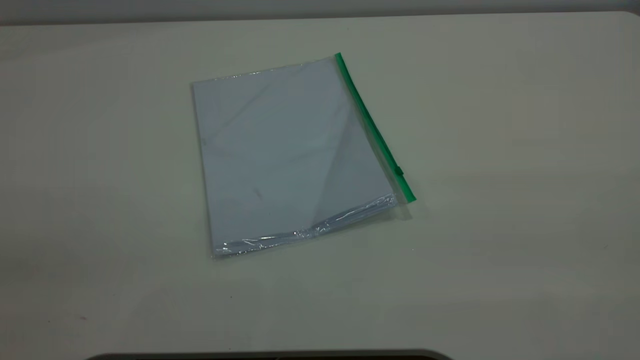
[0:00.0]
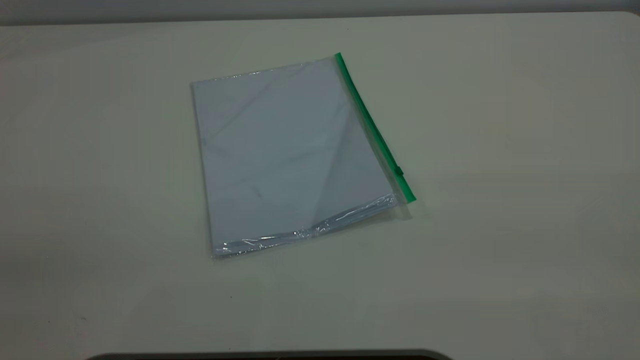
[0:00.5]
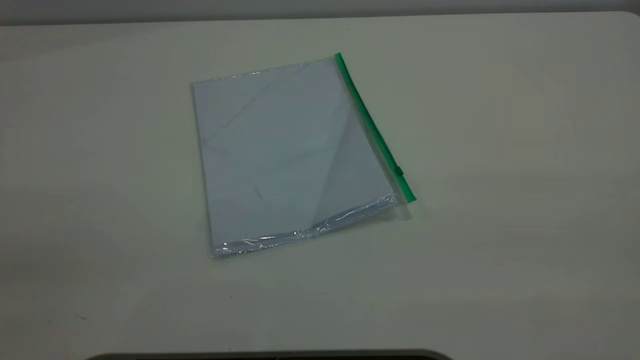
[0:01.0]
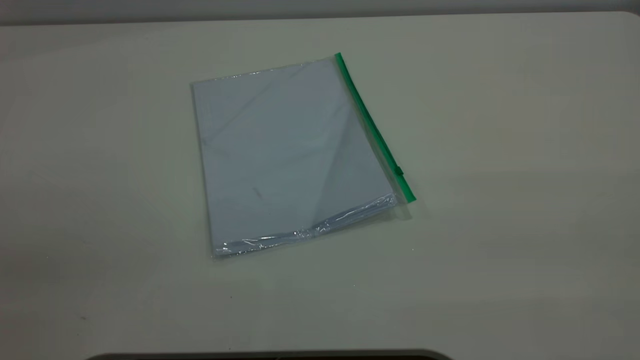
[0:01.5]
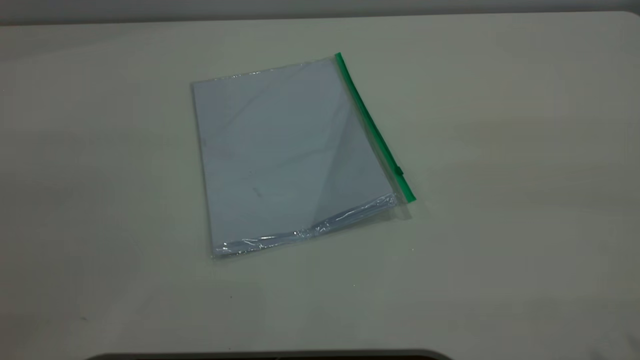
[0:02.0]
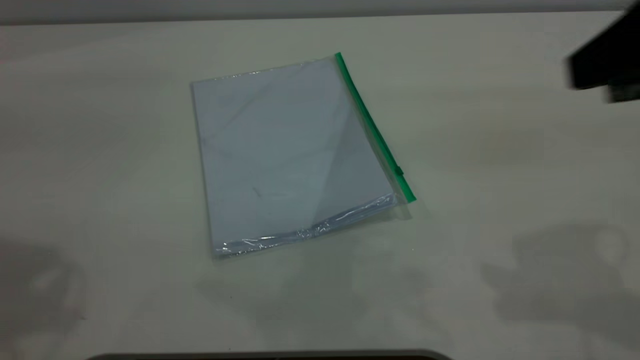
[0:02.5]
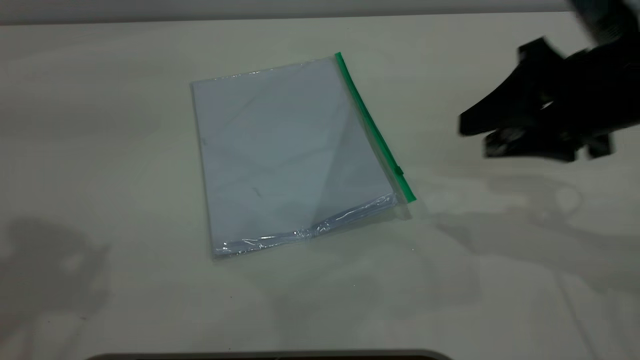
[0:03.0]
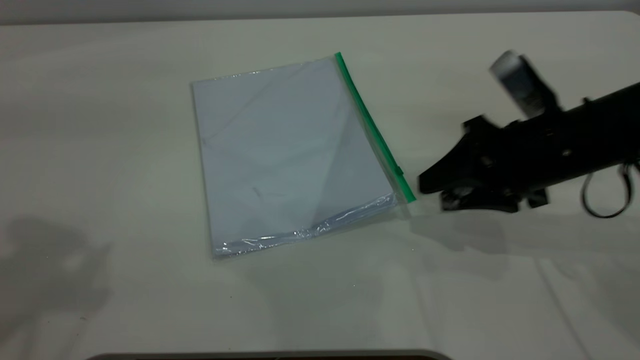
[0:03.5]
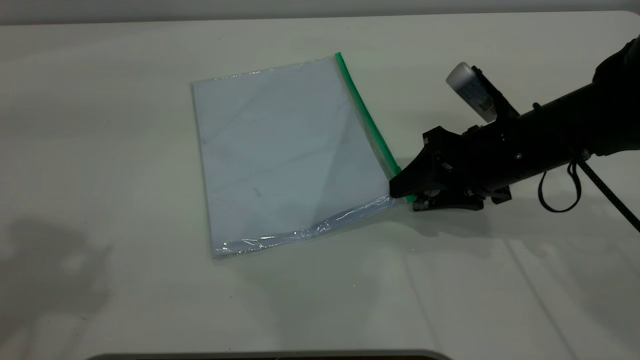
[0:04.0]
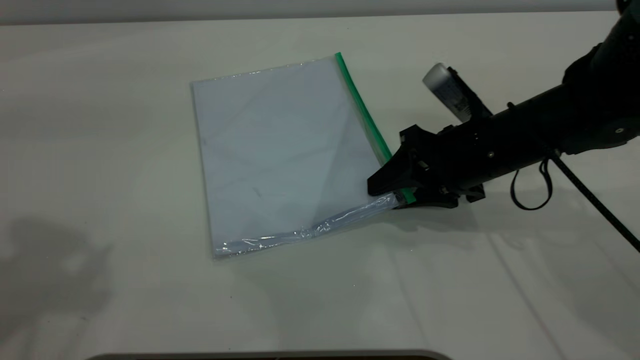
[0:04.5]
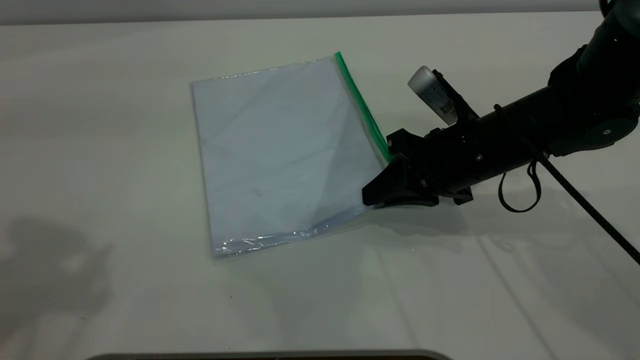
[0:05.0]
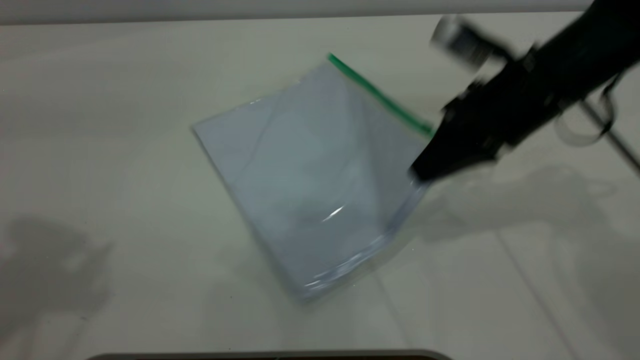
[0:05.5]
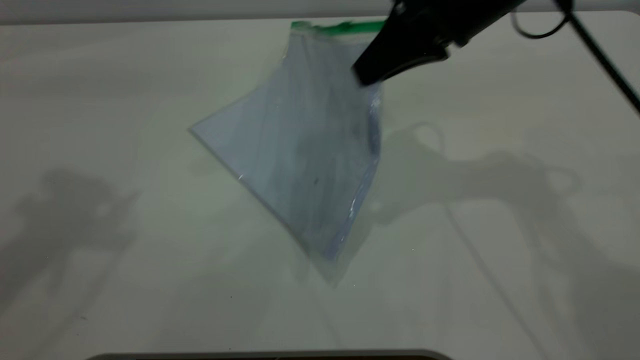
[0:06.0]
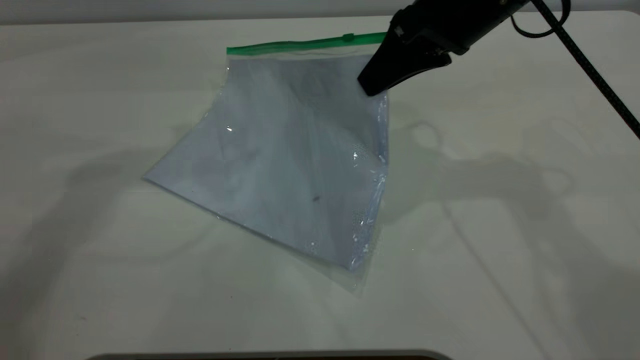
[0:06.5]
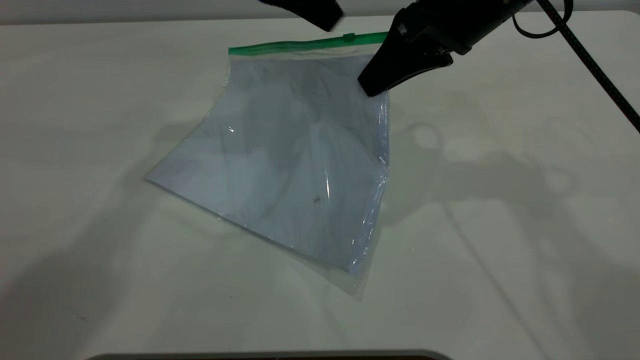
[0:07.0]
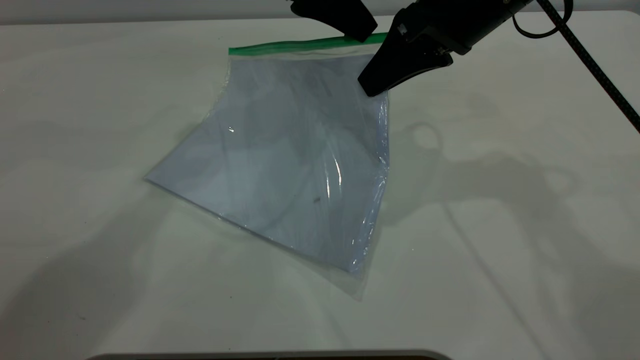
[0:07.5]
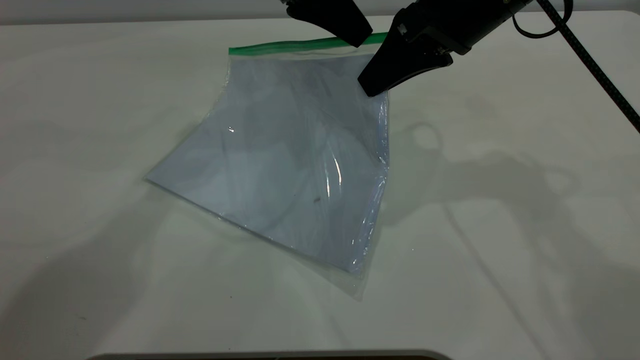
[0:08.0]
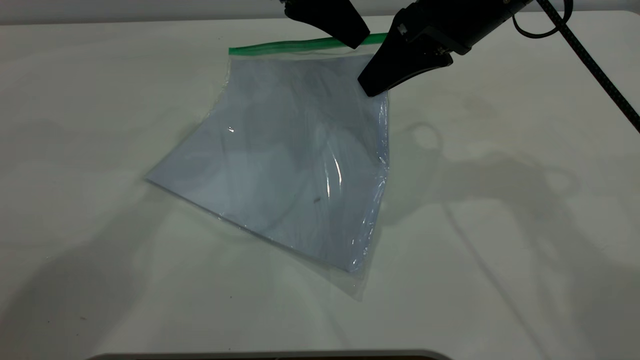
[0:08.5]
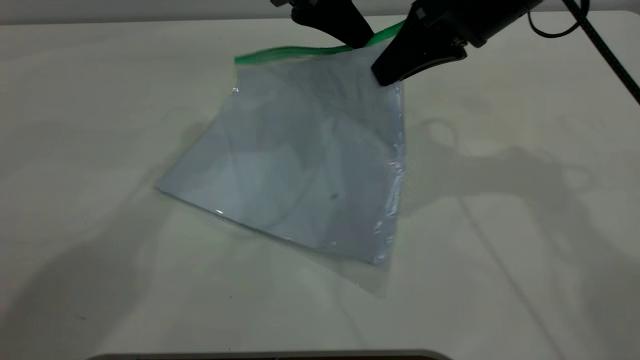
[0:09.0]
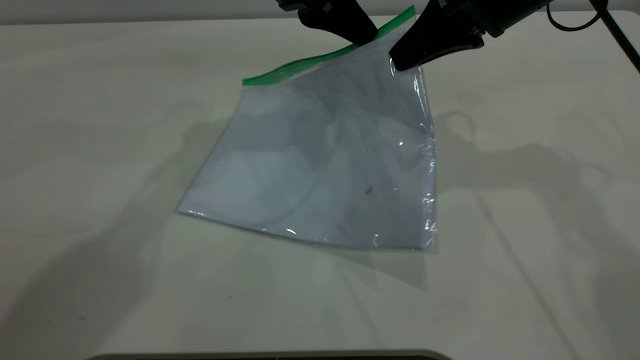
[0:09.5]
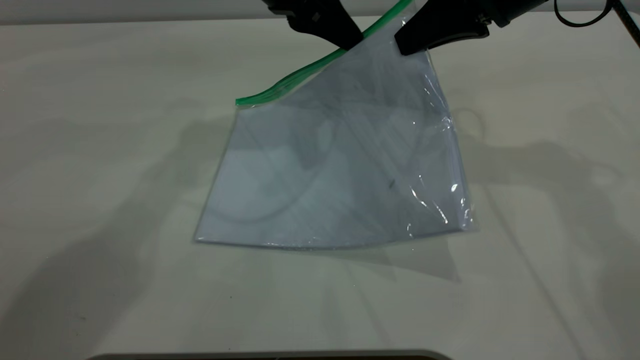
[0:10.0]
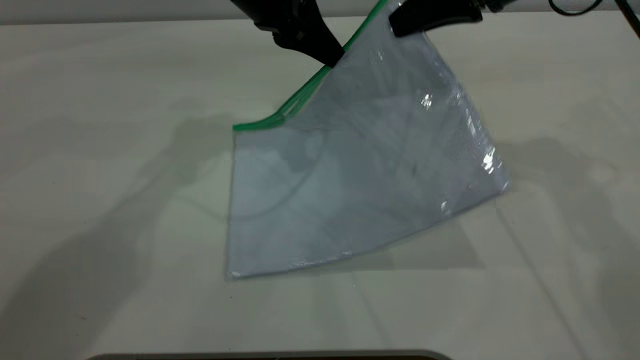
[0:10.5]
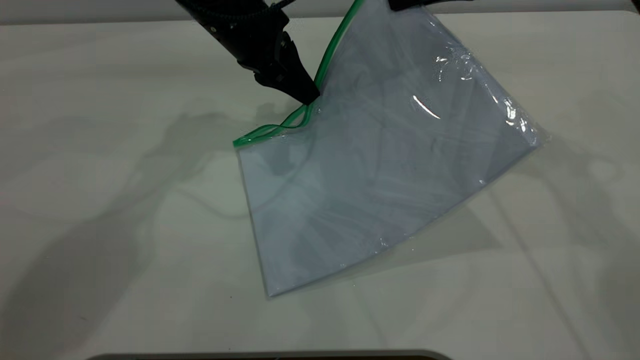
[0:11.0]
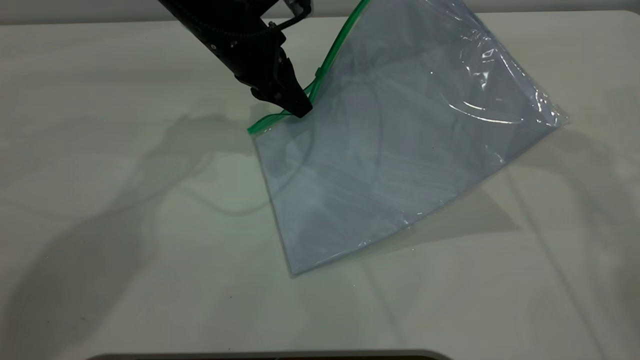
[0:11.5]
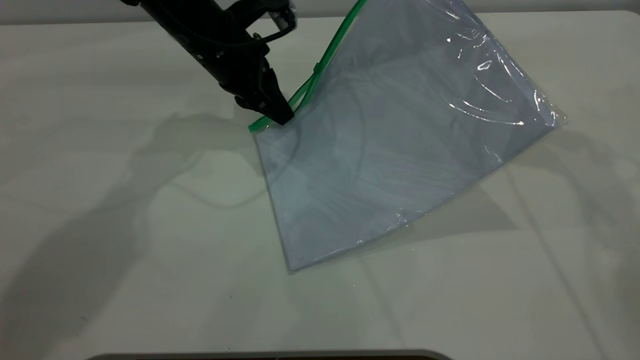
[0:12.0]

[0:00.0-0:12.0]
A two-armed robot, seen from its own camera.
Step, 0:00.0 to 0:05.0: Pick up the transparent plastic bag with the right gripper.
0:02.0 to 0:04.0: The left gripper travels forward by about 15 cm, while the right gripper is displaced downward and forward by approximately 40 cm.
0:04.0 to 0:06.0: The left gripper shifts roughly 10 cm forward. Meanwhile the right gripper moves upward, roughly 15 cm, and closes its fingers.
0:06.0 to 0:08.0: The left gripper shifts some 30 cm to the right, downward and forward, and closes its fingers.
0:08.0 to 0:10.0: The right gripper shifts by roughly 5 cm. Meanwhile the left gripper closes its fingers.
0:10.0 to 0:12.0: The left gripper shifts roughly 10 cm downward and to the left.

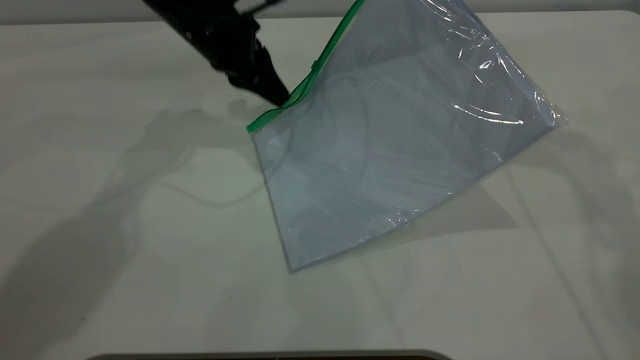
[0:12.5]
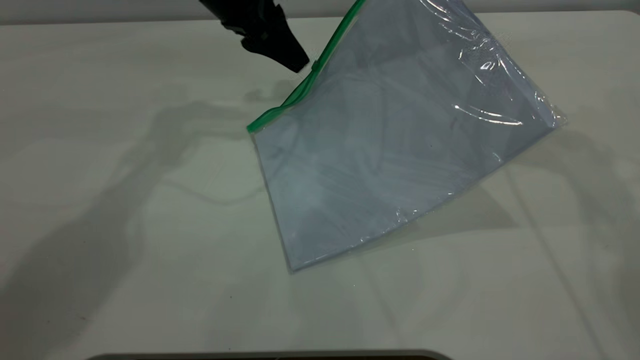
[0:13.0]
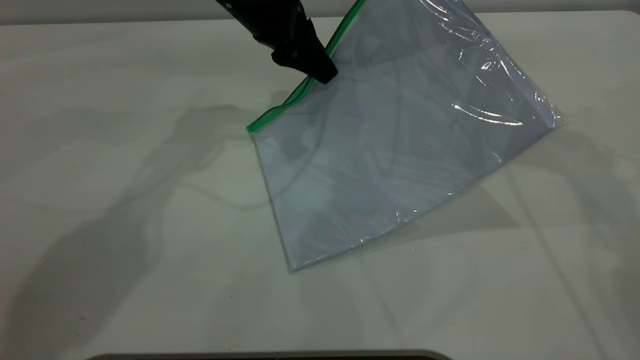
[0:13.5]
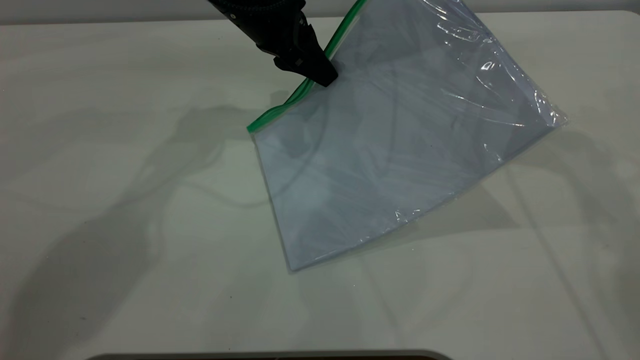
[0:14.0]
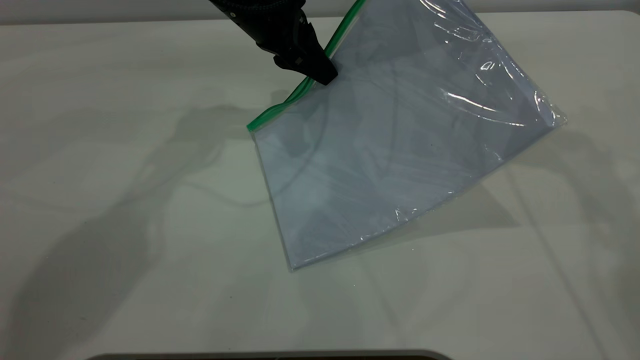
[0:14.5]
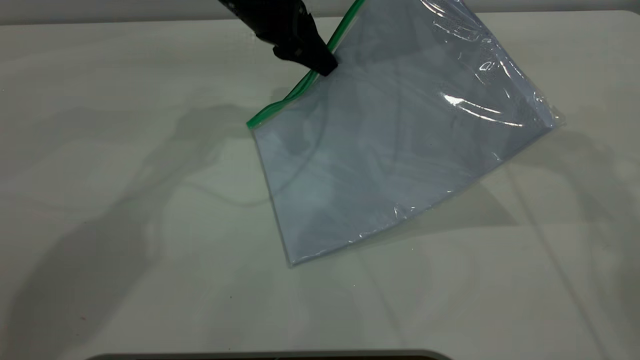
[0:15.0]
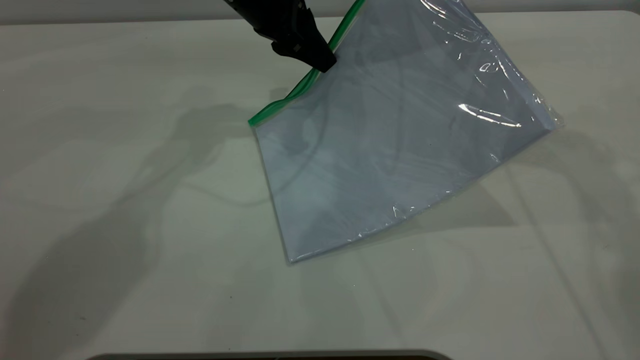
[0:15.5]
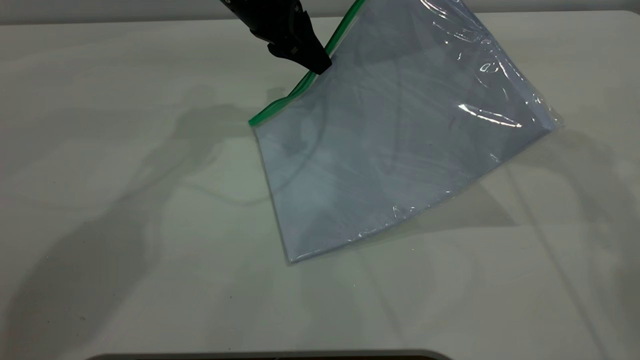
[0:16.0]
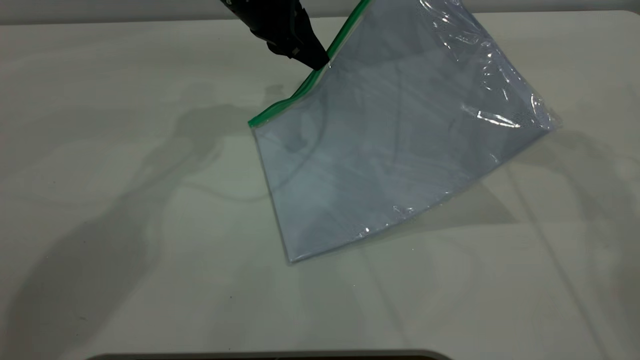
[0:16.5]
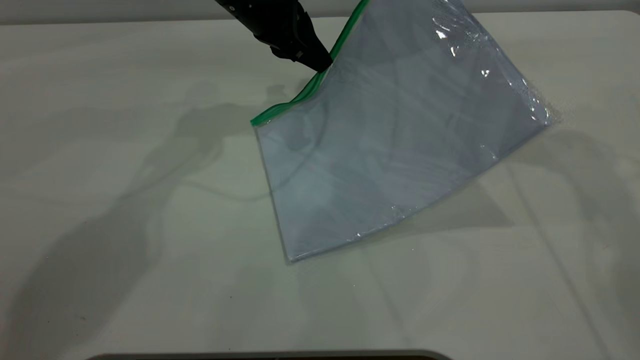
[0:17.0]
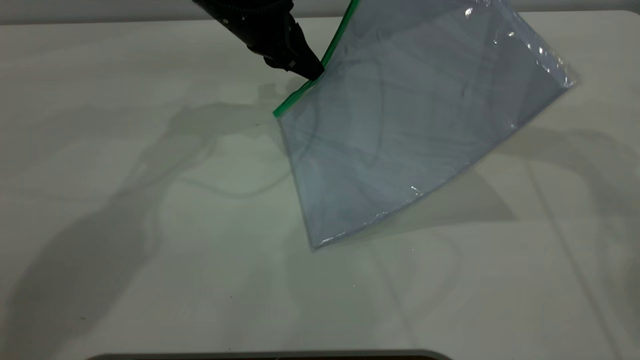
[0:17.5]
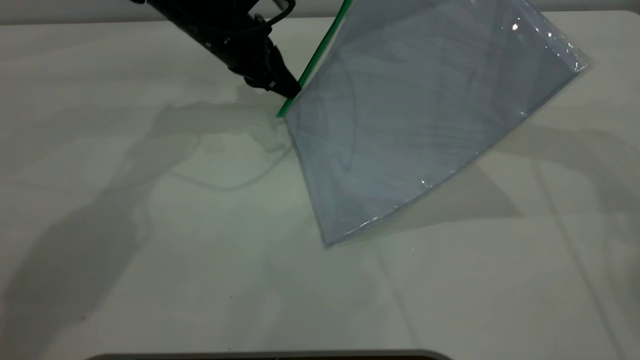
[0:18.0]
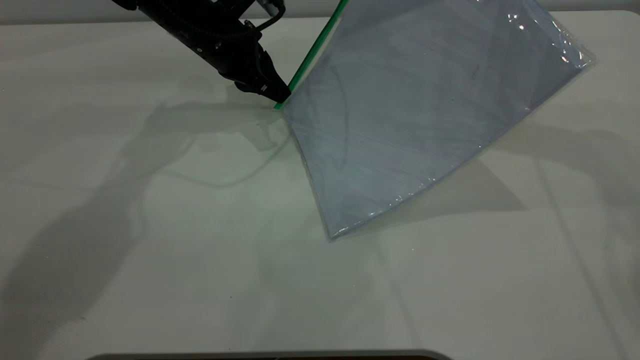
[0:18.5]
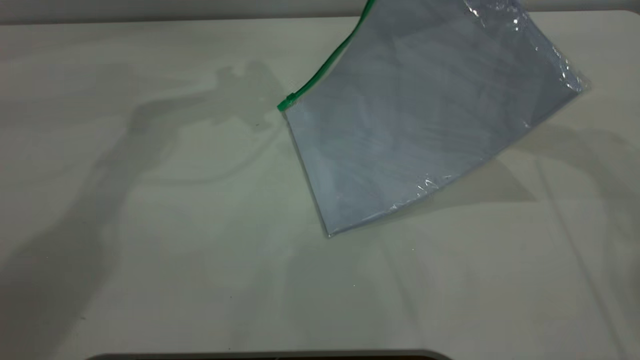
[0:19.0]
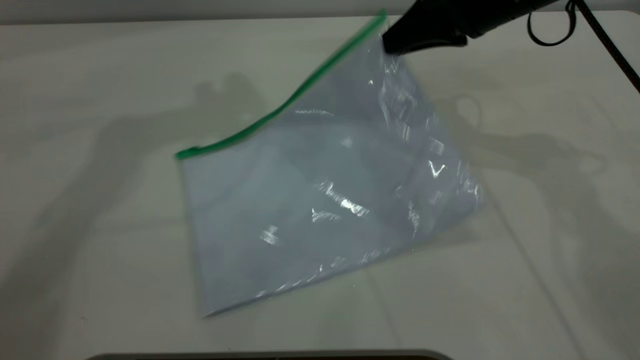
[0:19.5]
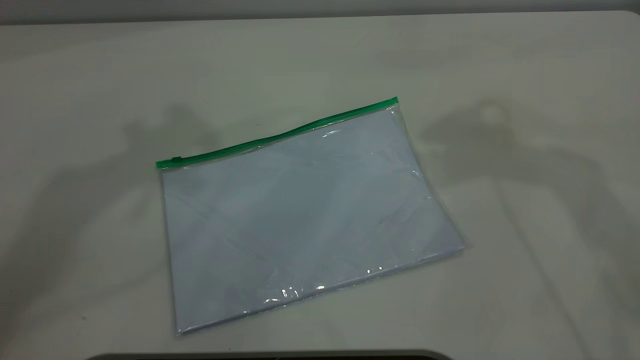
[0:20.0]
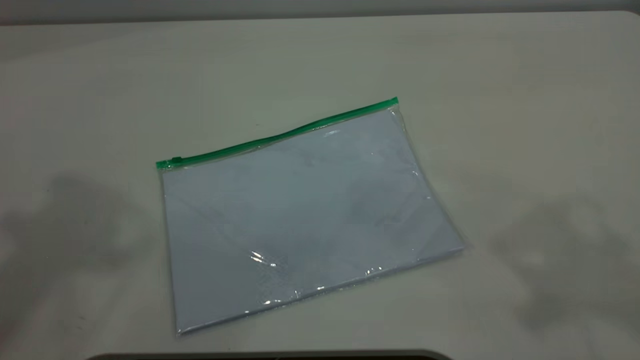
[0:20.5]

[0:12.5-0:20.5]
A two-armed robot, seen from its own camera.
Step, 0:12.5 to 0:18.5: Pulling up the zipper on the transparent plastic bag with the left gripper to close it.
Step, 0:19.0 to 0:19.5: Place the transparent plastic bag.
0:12.5 to 0:14.5: The left gripper opens, then closes once more.
0:14.5 to 0:16.5: The left gripper closes.
0:16.5 to 0:18.5: The left gripper is displaced downward and to the left by roughly 10 cm.
0:18.5 to 0:20.5: The left gripper goes approximately 50 cm upward and backward, and opens its fingers. The right gripper shifts approximately 30 cm backward and upward, and opens its fingers.
